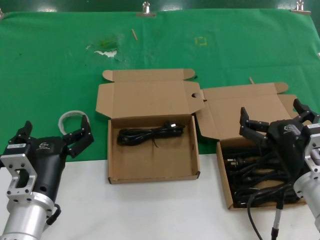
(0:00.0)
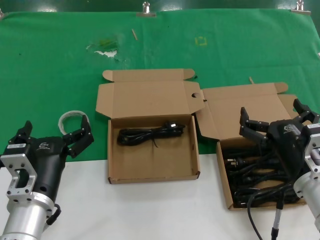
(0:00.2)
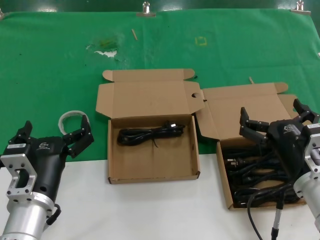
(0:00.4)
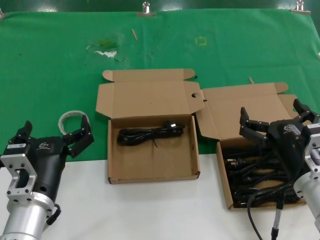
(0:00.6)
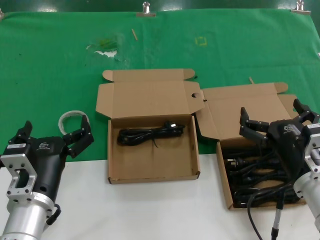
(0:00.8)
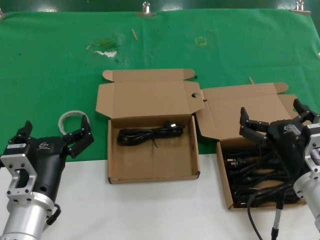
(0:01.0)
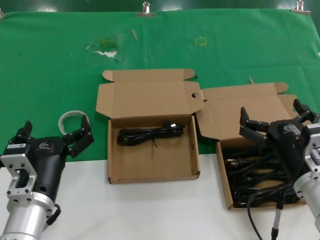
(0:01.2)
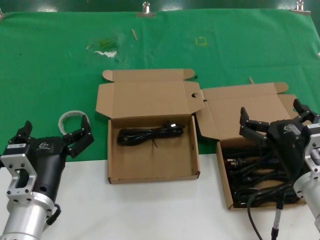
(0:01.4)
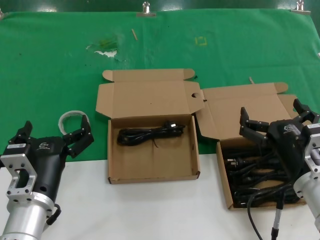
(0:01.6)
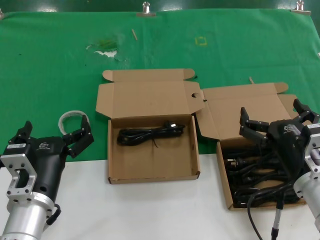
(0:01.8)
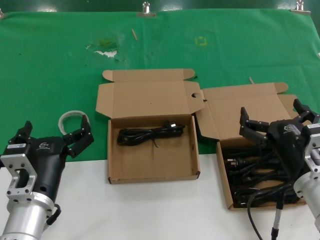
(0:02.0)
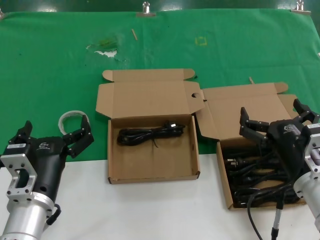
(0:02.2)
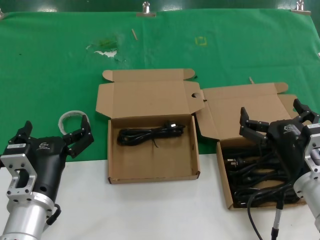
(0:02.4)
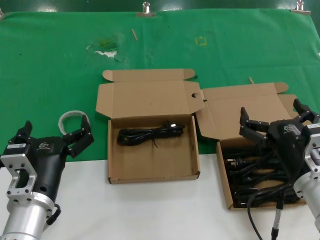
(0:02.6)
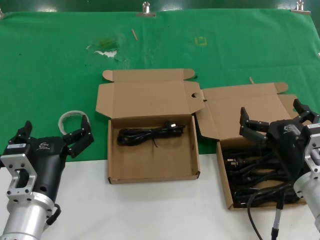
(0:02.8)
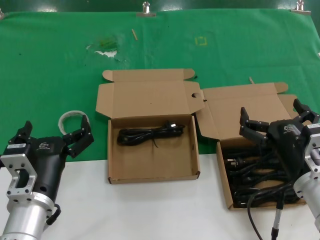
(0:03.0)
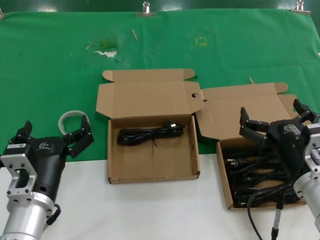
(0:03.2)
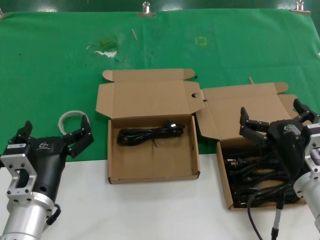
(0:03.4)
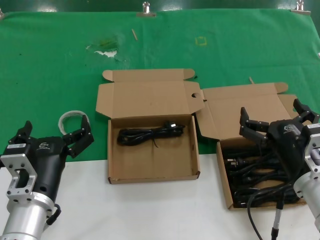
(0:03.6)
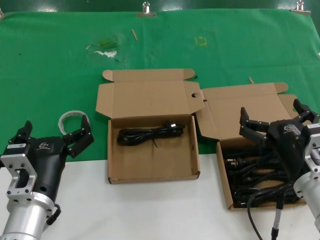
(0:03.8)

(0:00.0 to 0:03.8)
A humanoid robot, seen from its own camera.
Task of the whole recording: take the parts from the box containing them and put them into an empty box.
0:00.0 - 0:03.8: Both hands stay put.
